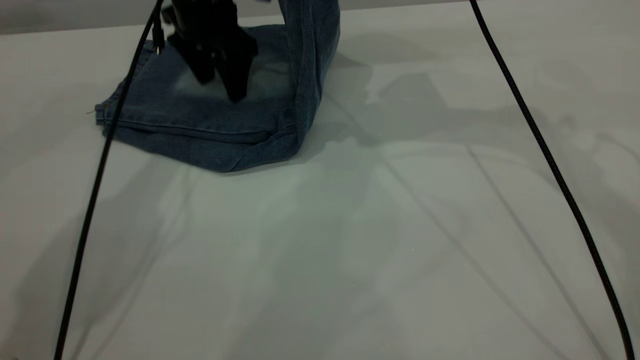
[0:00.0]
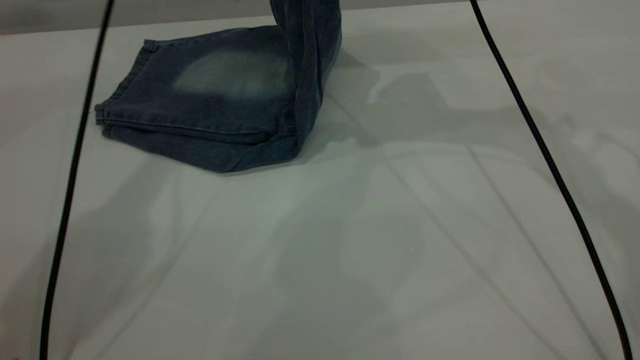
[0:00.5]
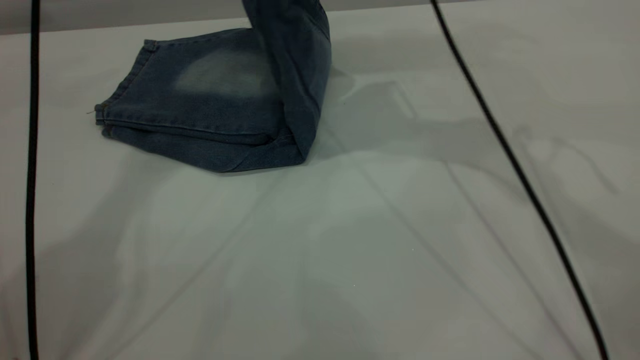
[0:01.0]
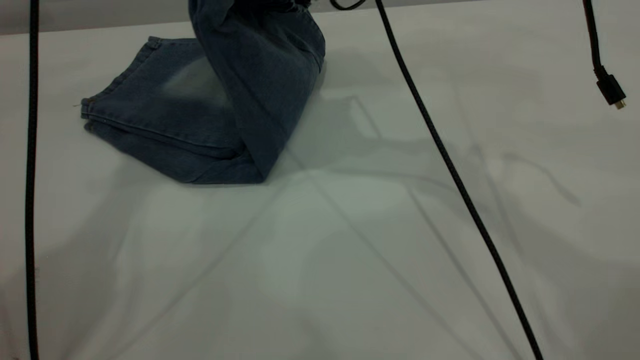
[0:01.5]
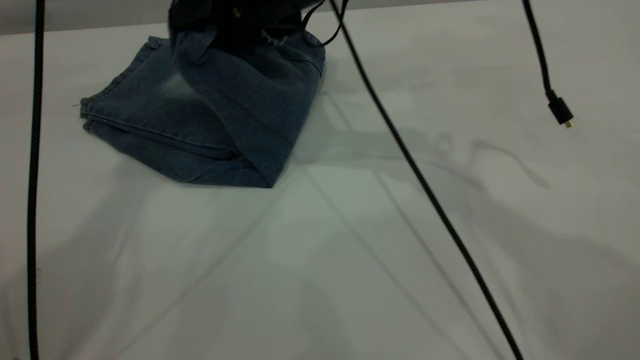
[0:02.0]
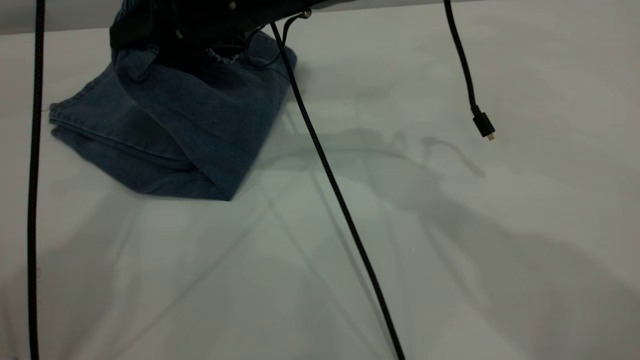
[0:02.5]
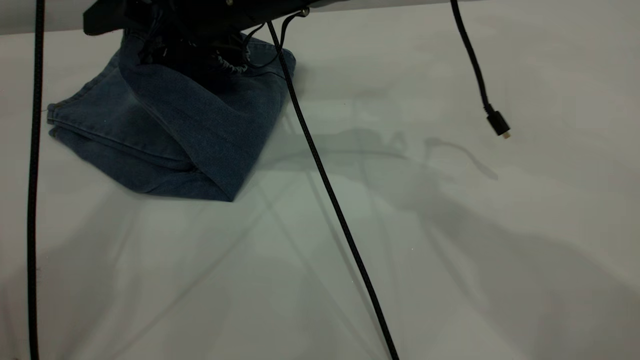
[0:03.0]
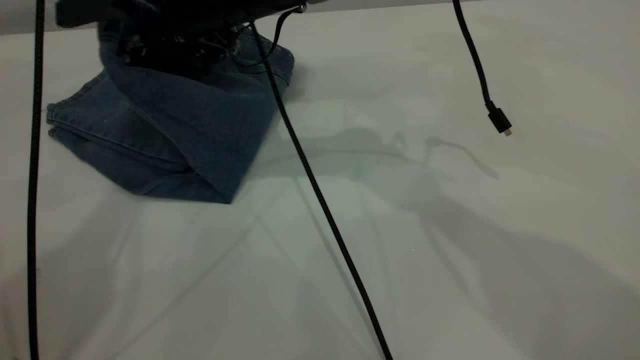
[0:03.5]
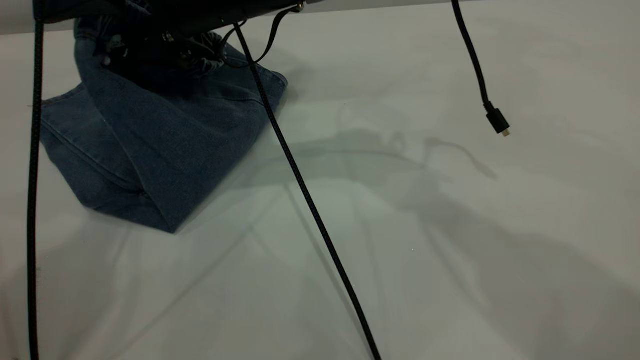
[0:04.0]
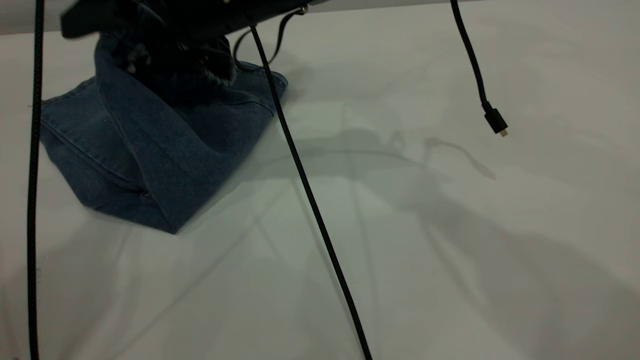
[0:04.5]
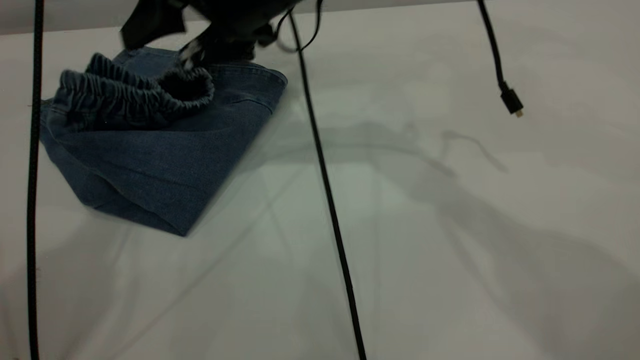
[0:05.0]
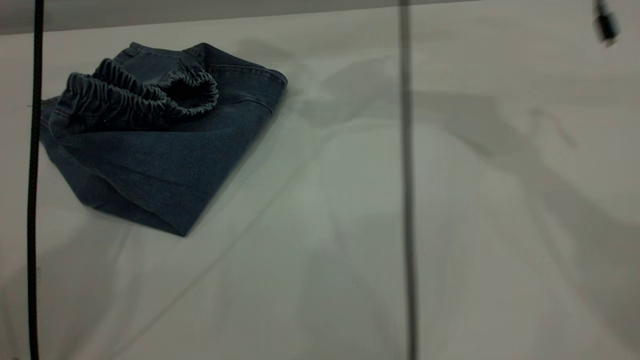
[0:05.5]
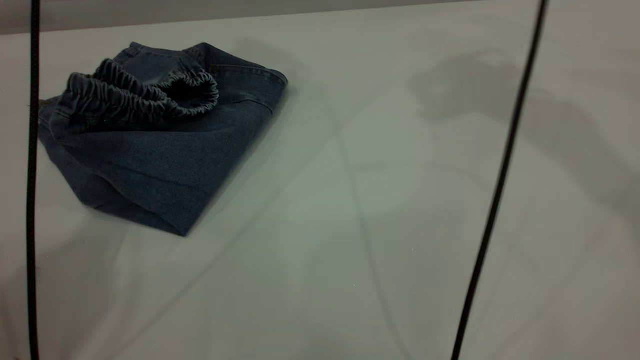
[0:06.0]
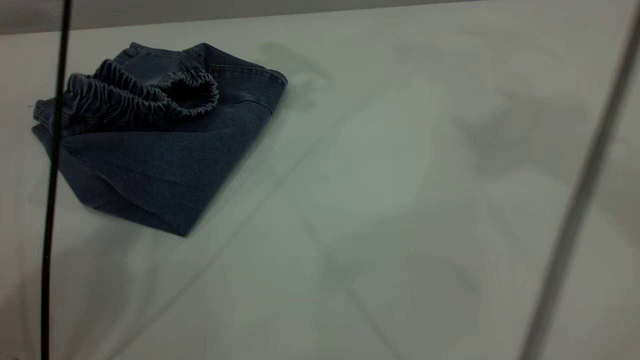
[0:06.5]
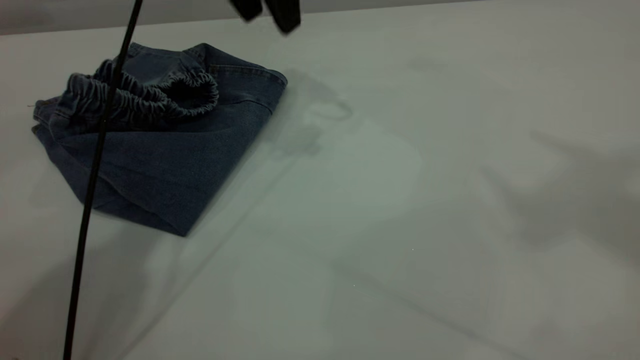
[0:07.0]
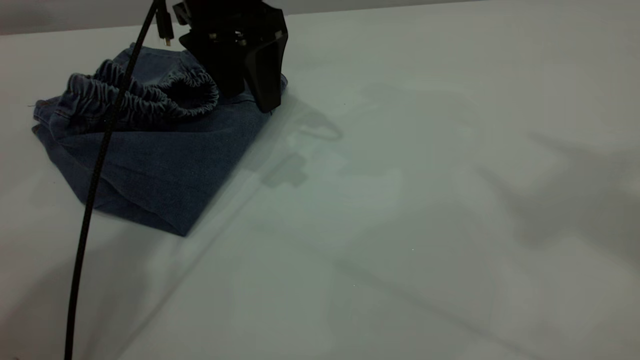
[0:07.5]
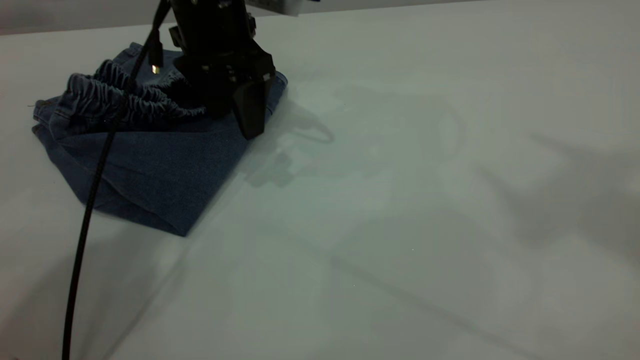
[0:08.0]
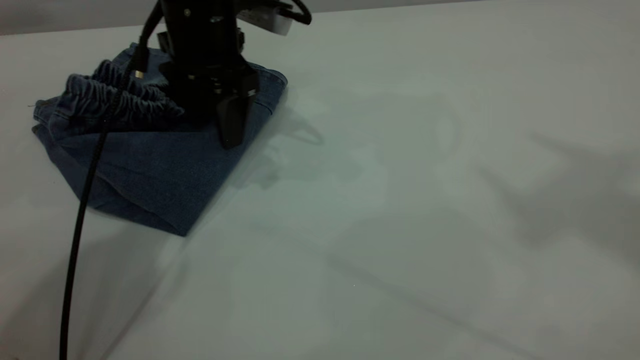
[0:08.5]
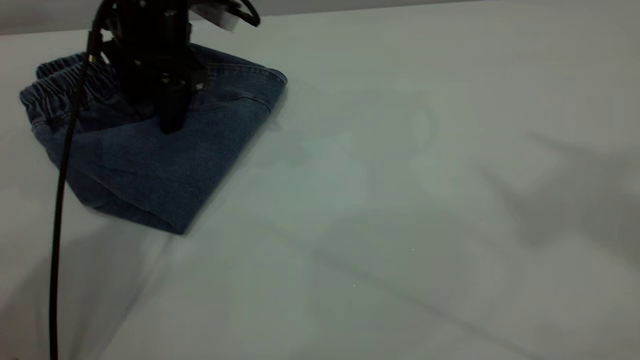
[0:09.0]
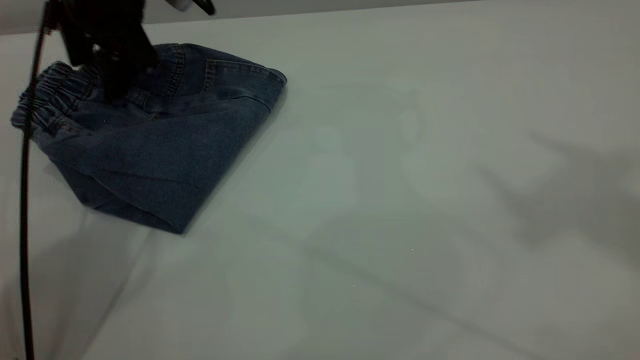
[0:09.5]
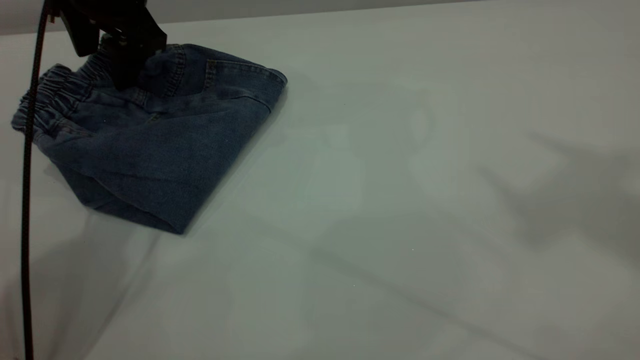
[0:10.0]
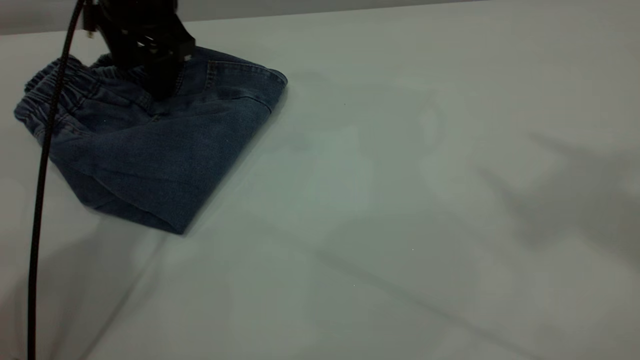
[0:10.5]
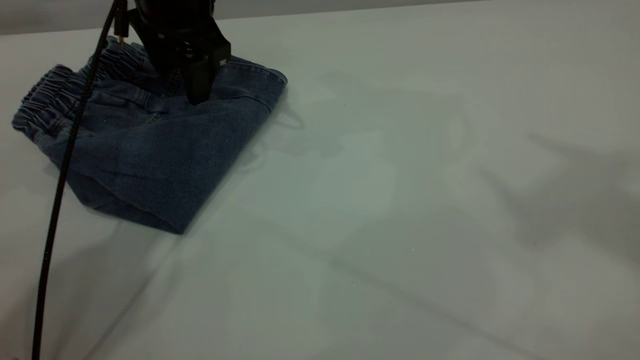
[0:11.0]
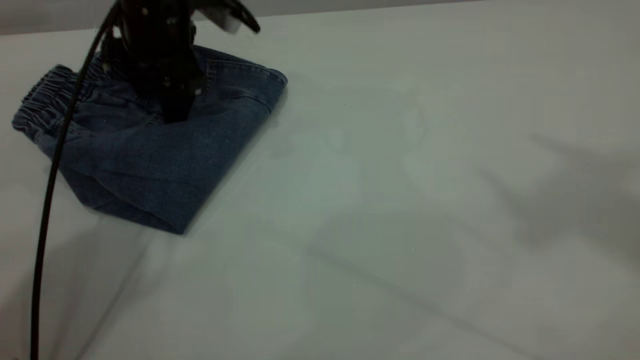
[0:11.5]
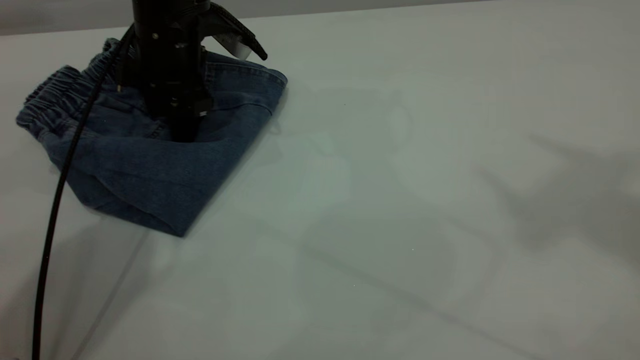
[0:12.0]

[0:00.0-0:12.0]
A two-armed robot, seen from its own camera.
Step, 0:00.0 to 0:05.5: Fold your pants from right to left.
0:00.0 to 0:02.0: The right gripper travels to the left by about 15 cm. Meanwhile the left gripper travels upward by some 30 cm.
0:02.0 to 0:04.0: The right gripper heads to the left, covering approximately 5 cm, and opens.
0:04.0 to 0:06.0: The right gripper moves to the right and upward, about 30 cm.
0:06.0 to 0:08.0: The left gripper travels downward by approximately 25 cm, while the right gripper shifts some 25 cm upward and backward.
0:08.0 to 0:10.0: The left gripper is displaced to the left by about 10 cm.
0:10.0 to 0:12.0: The left gripper shifts roughly 10 cm downward.

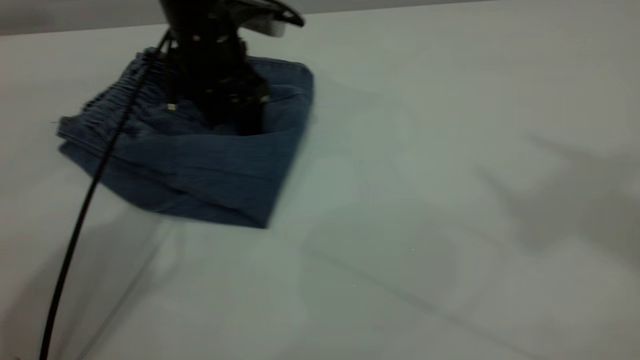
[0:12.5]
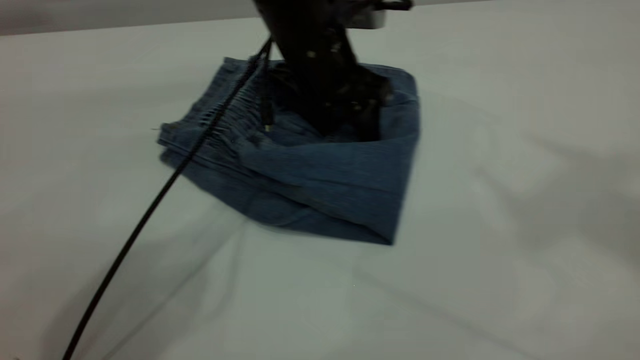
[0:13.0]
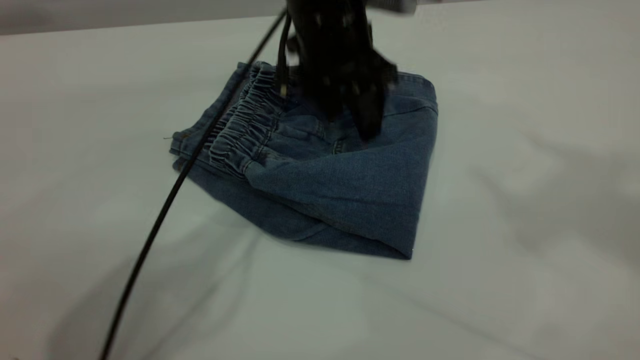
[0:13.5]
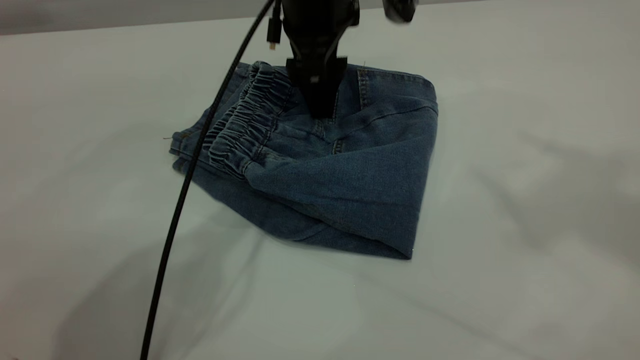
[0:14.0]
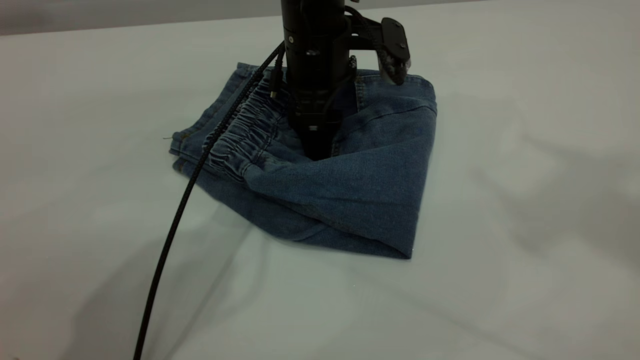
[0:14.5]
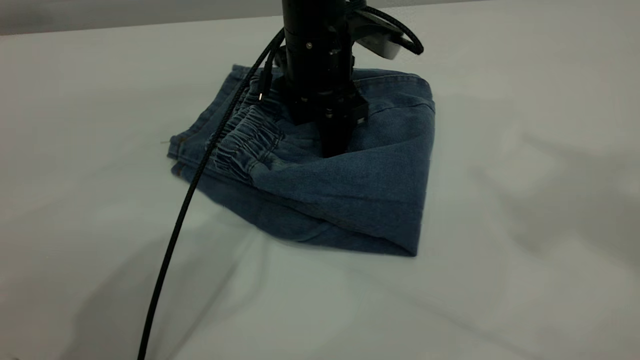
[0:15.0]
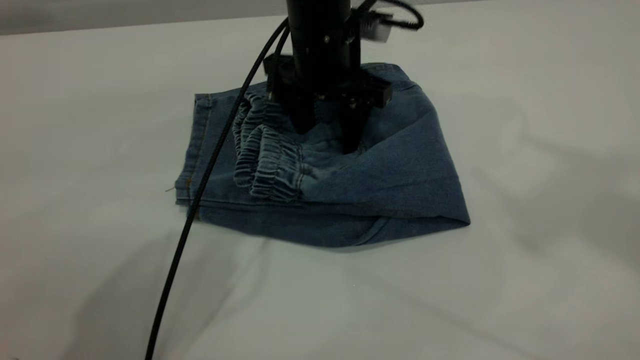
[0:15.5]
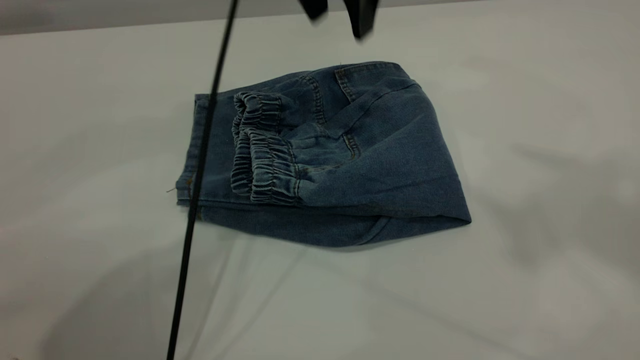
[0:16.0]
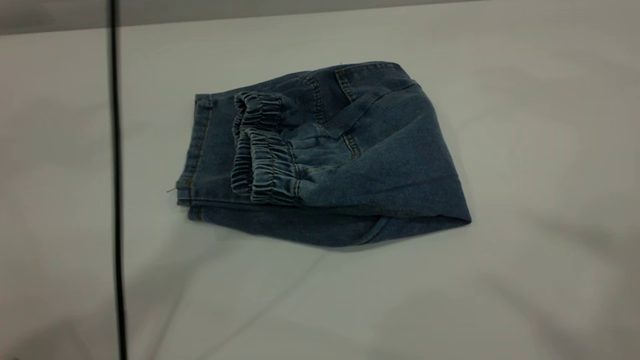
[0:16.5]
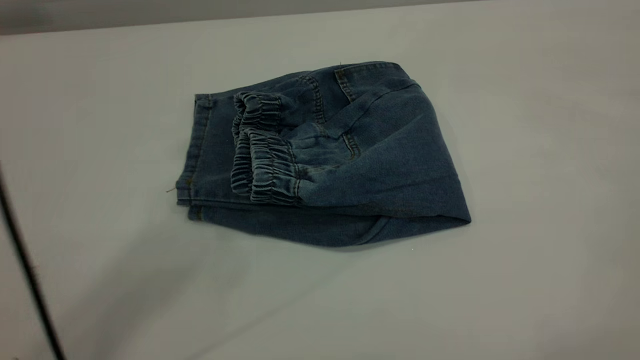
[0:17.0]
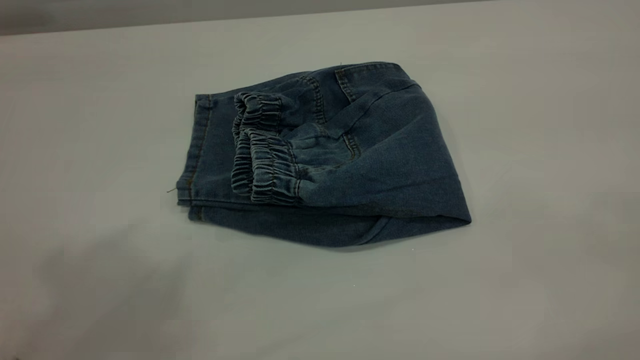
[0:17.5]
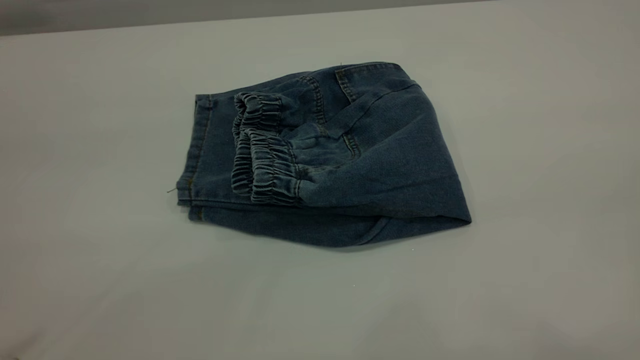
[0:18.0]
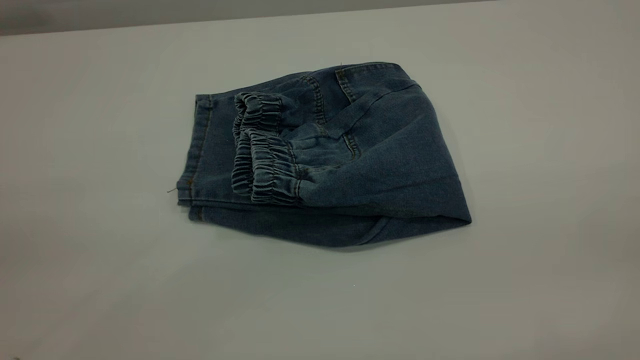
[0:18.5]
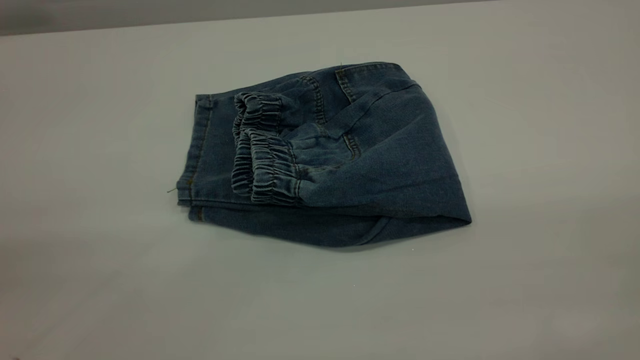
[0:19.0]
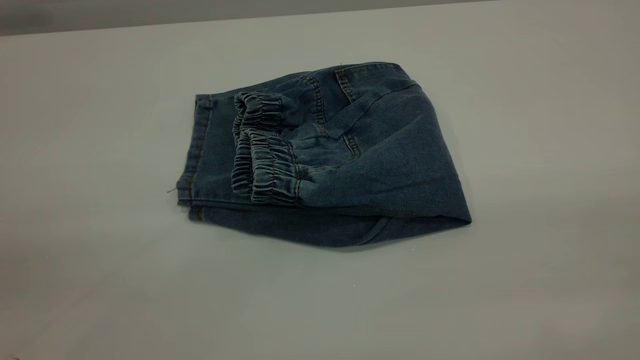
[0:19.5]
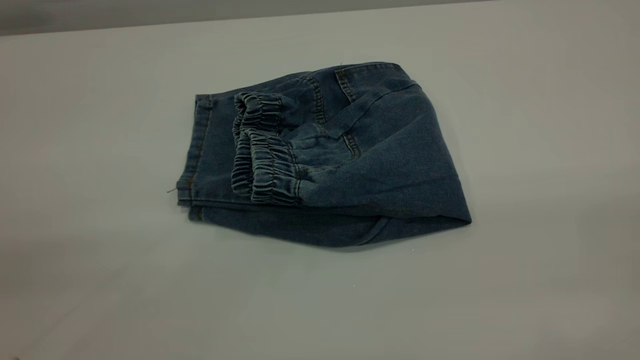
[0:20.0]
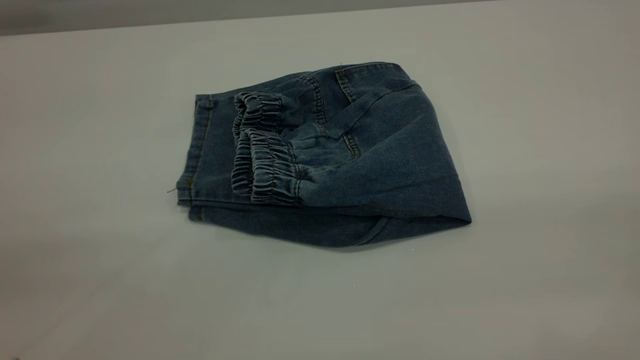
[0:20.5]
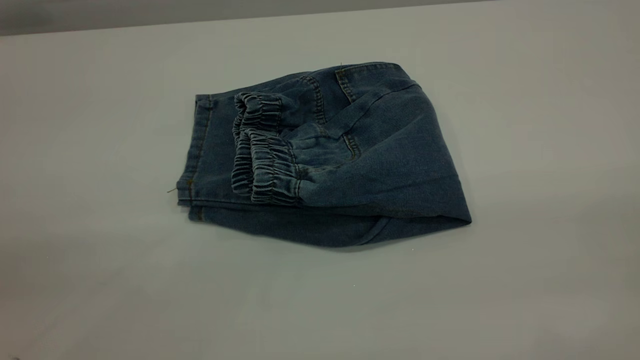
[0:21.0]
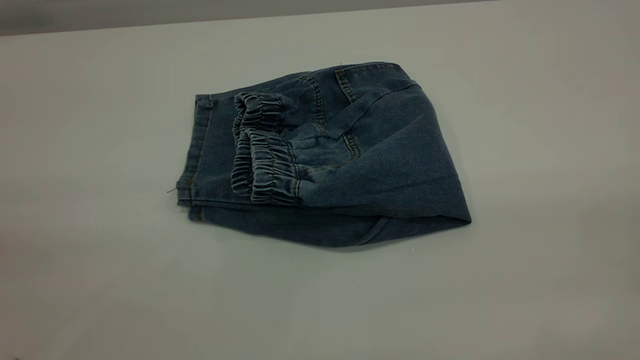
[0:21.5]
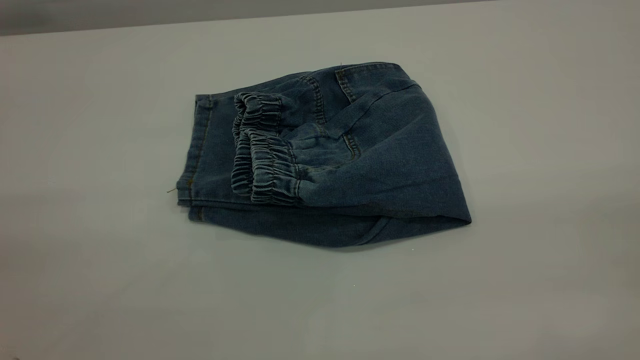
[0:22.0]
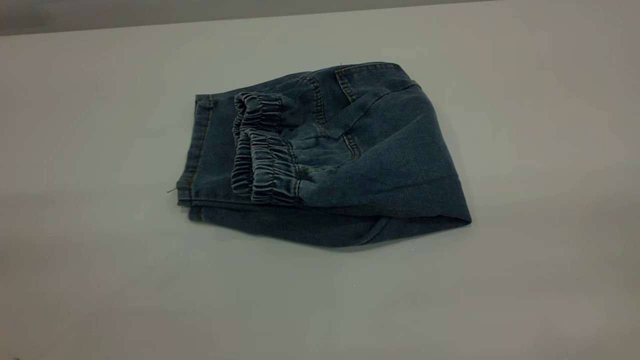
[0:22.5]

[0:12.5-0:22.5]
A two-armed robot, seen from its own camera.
0:12.5 to 0:14.5: The left gripper goes roughly 10 cm to the right.
0:14.5 to 0:16.5: The left gripper is displaced upward by some 30 cm; the right gripper is displaced backward by some 10 cm.
0:16.5 to 0:18.5: The left gripper goes approximately 40 cm backward and to the left.
